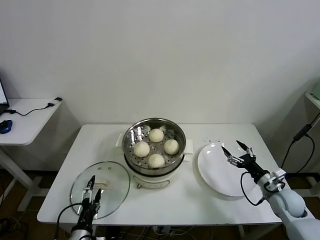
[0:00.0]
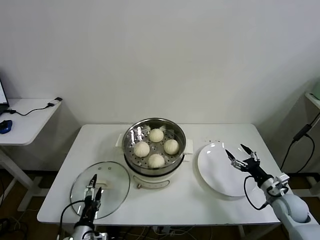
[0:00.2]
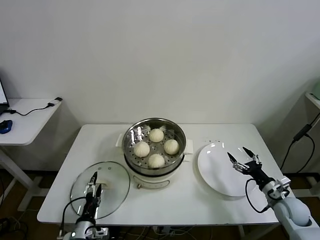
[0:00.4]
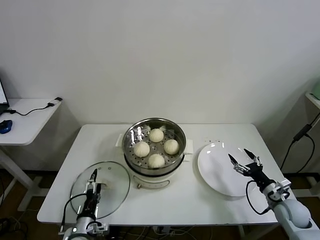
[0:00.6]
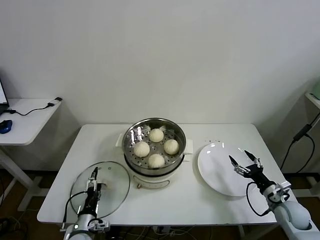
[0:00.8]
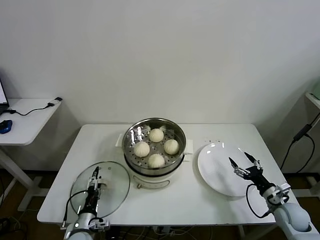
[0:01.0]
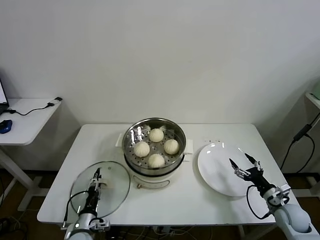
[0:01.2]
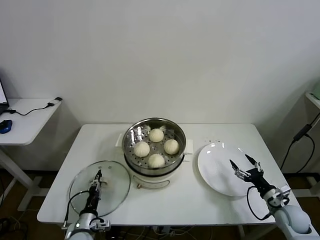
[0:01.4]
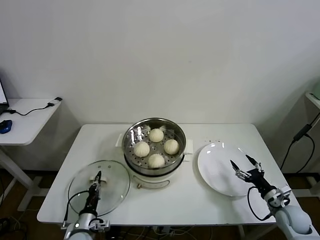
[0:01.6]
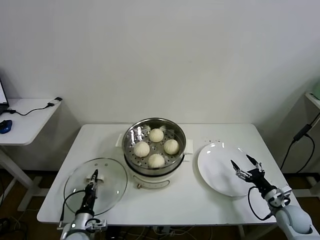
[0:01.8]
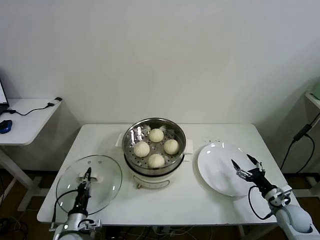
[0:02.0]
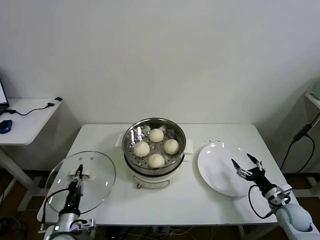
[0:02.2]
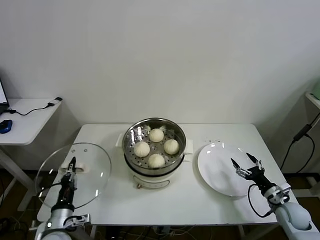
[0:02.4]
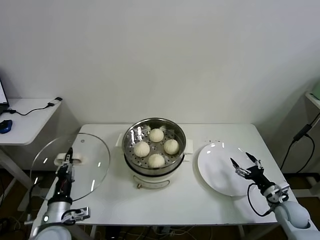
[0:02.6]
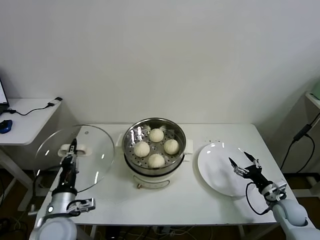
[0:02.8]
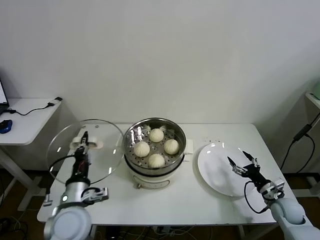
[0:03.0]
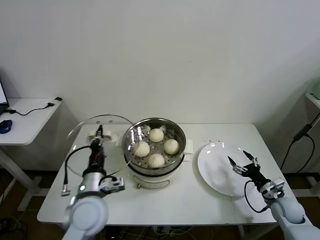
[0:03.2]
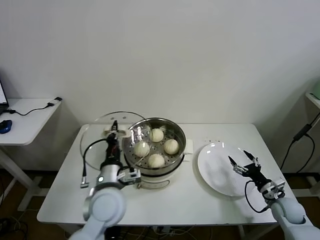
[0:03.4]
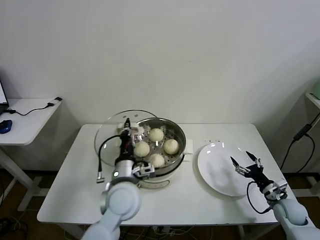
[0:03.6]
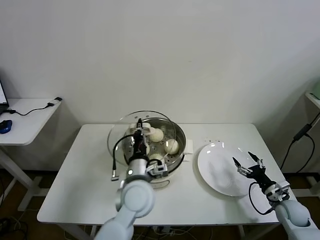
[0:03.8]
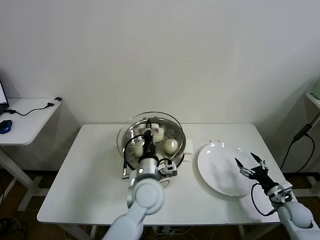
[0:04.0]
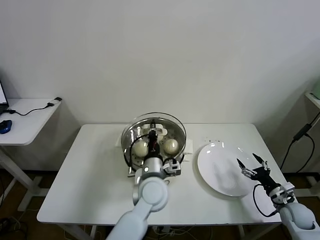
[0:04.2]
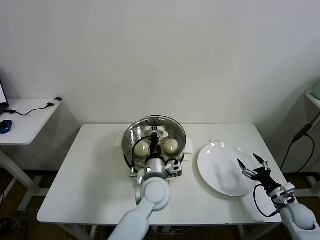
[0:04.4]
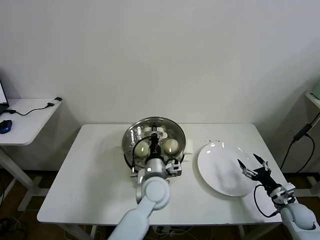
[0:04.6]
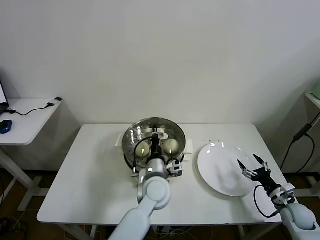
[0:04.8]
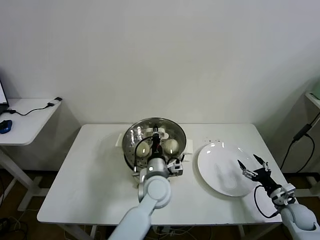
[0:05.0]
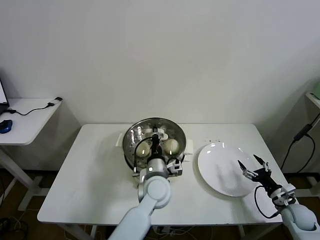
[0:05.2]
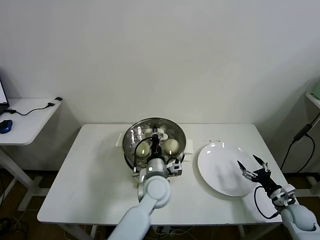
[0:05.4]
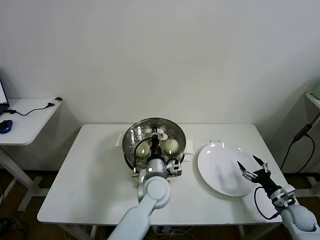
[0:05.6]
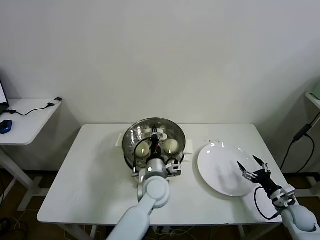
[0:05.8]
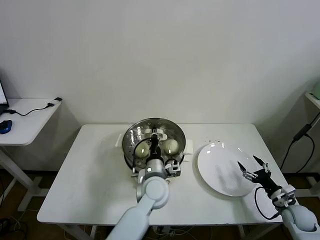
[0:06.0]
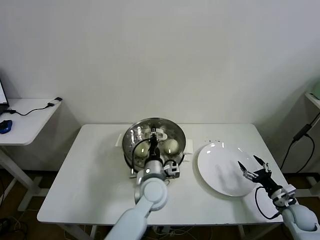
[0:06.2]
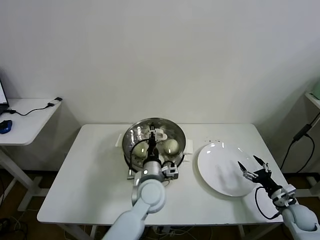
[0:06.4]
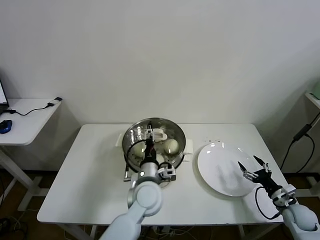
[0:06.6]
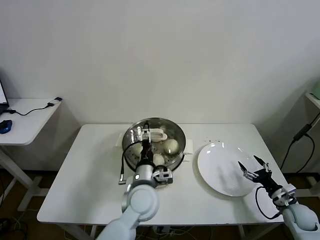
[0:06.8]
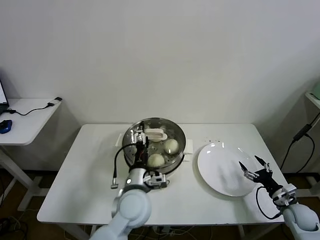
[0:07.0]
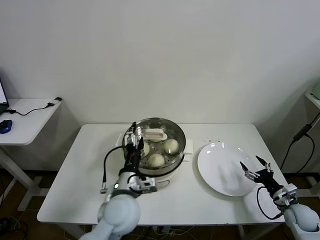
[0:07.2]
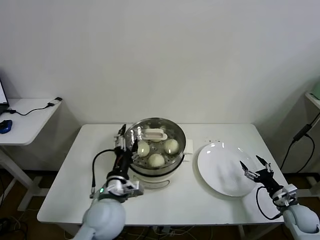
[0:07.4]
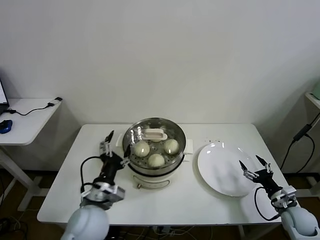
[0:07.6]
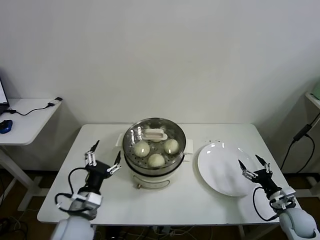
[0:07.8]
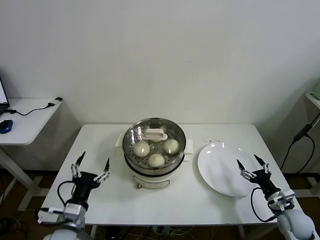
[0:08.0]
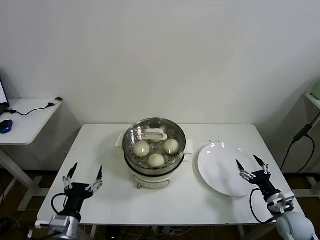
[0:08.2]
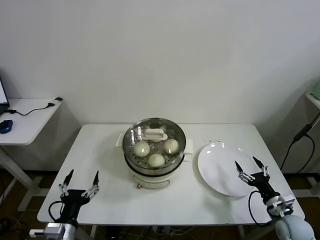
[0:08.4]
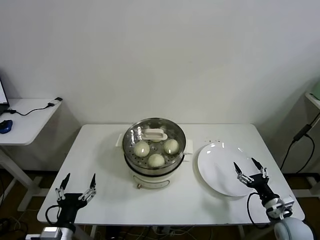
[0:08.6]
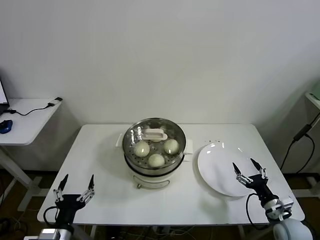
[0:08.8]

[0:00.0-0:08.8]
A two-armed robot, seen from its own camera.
Task of the whole recording: take steamed baozi put them in steamer then cover it.
Step, 0:01.8 to 0:06.6: Place the pot lid on the steamer with left gripper.
0:00.0 to 0:01.4: The left gripper is displaced forward and downward by roughly 10 cm, and closes its fingers; the right gripper changes place by approximately 5 cm.
0:01.4 to 0:03.0: The left gripper is displaced upward by approximately 20 cm, and closes.
0:03.0 to 0:04.4: The left gripper shifts some 25 cm to the right and forward.
0:04.4 to 0:05.8: The grippers move only a little.
0:05.8 to 0:07.4: The left gripper shifts roughly 15 cm to the left, backward and upward, and opens its fingers.
0:07.4 to 0:08.8: The right gripper shifts roughly 5 cm to the left. The left gripper travels to the left, backward and downward by some 20 cm.
